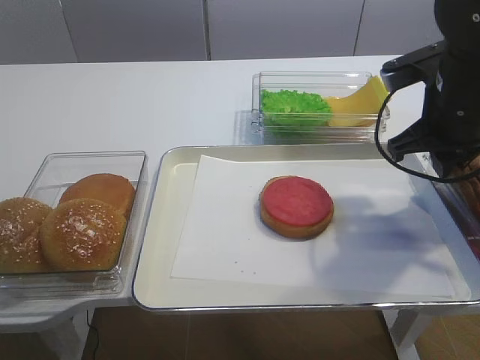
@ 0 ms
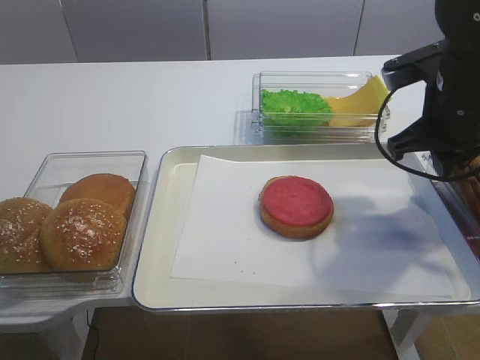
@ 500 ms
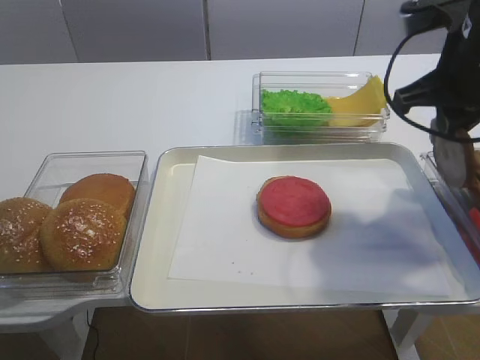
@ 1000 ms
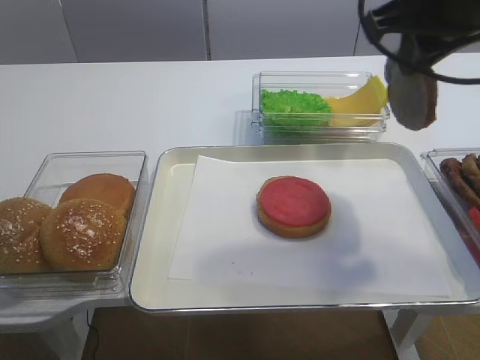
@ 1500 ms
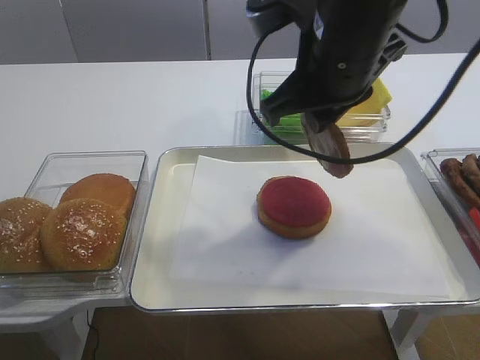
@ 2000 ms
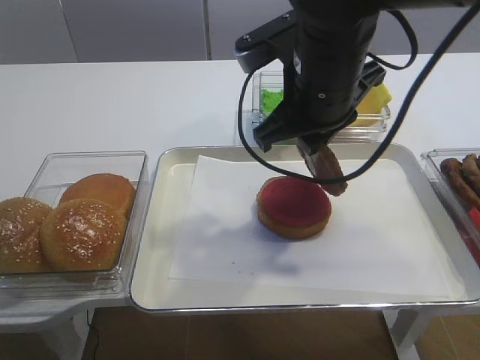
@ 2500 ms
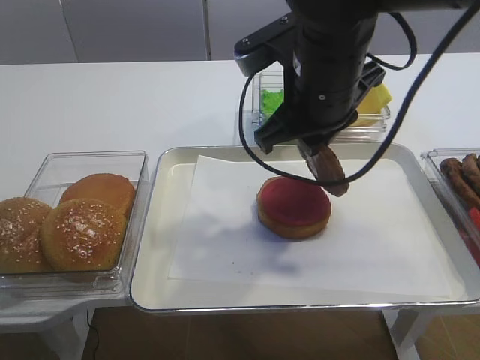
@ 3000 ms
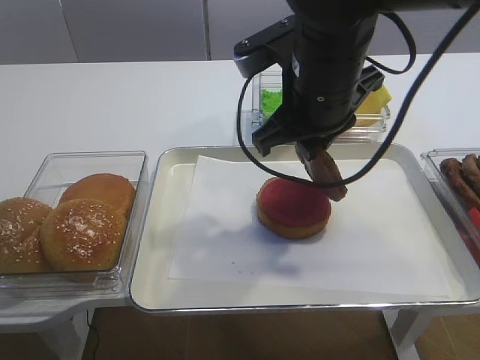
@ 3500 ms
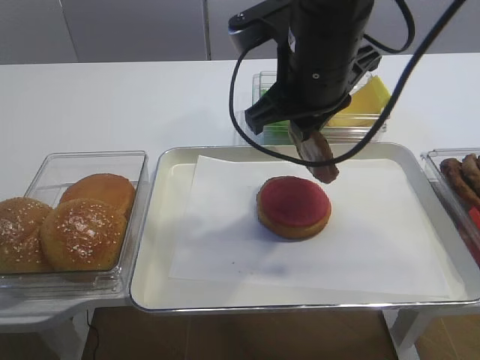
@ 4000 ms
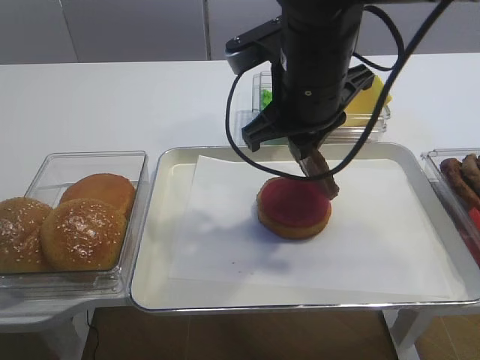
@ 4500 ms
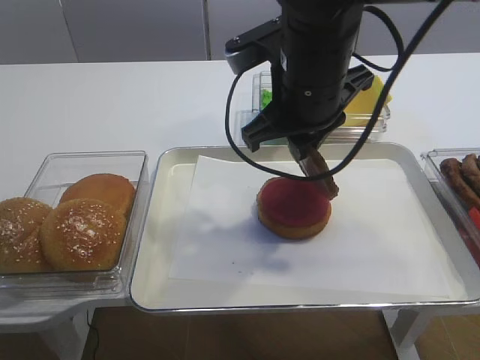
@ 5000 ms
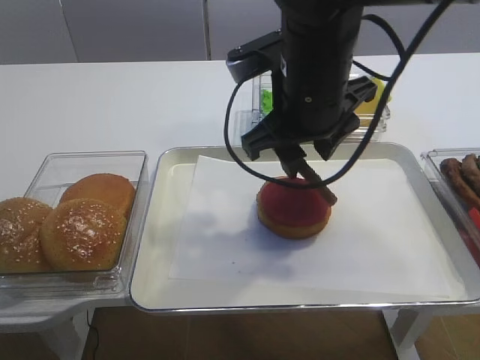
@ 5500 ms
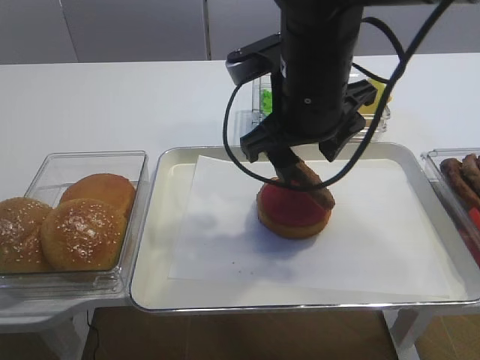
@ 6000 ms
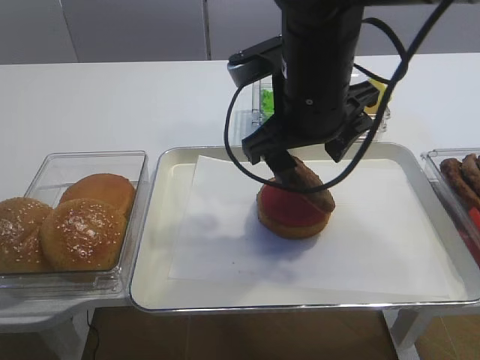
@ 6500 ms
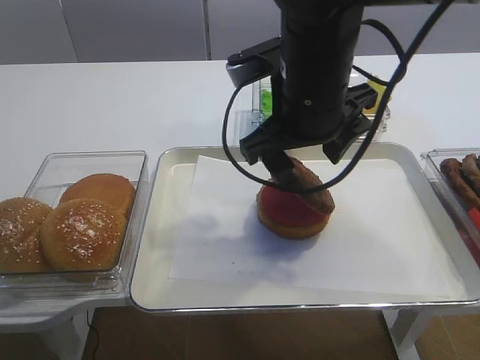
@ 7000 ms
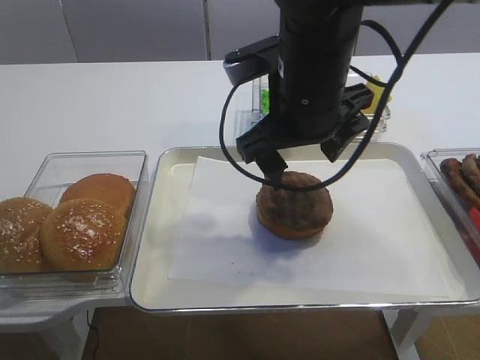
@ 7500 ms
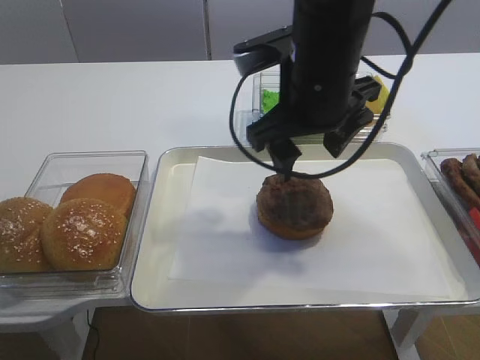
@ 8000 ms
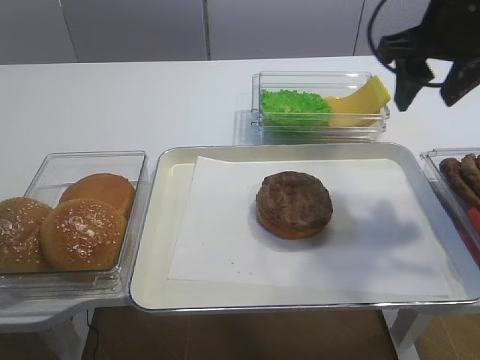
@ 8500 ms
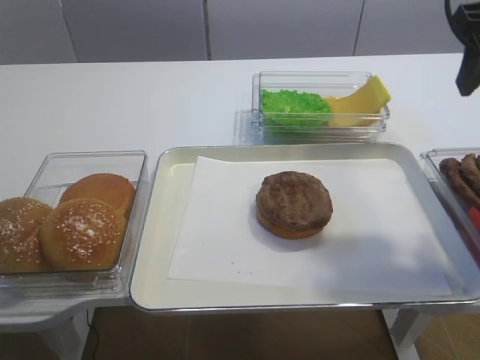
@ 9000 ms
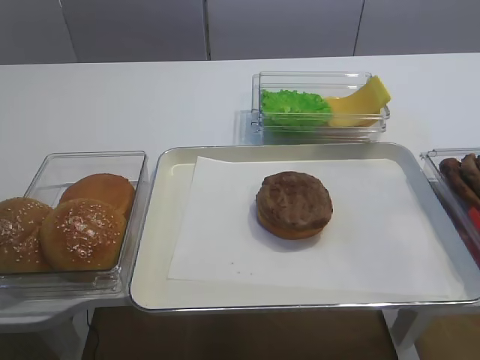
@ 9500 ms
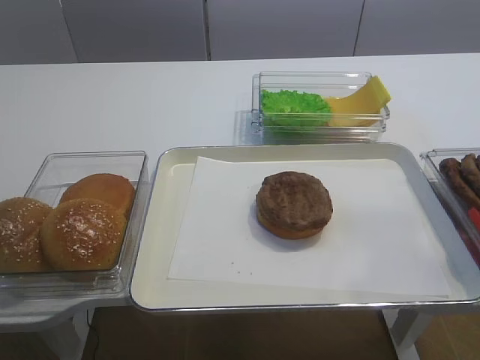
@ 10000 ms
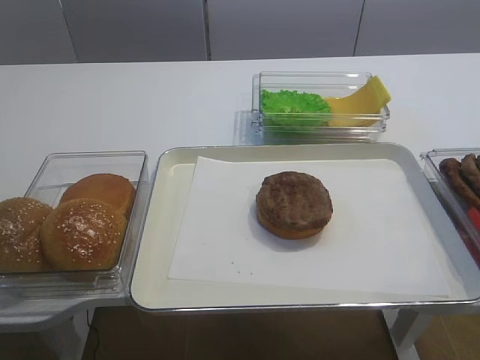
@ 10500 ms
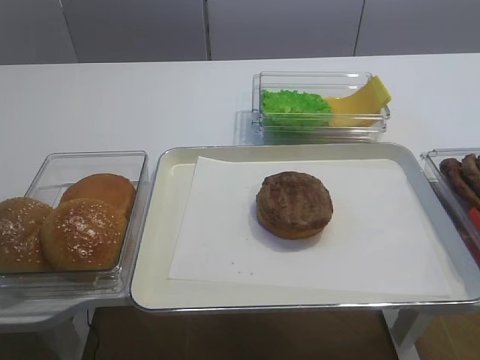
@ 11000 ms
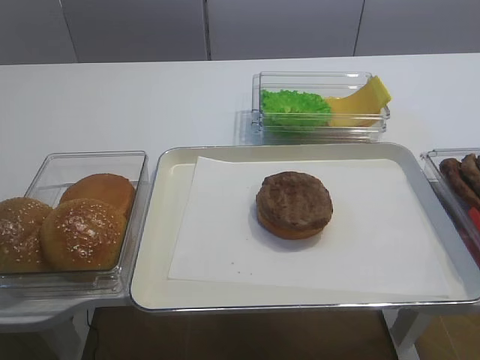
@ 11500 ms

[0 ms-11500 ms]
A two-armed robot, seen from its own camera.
Step, 1500 ms to 7500 ms: Place the cutlet on the tomato slice with the right gripper.
0 ms to 2000 ms: The right gripper is displaced to the left and upward by some 15 cm.
2000 ms to 4000 ms: The grippers stay close to where they were, moving slightly.
4000 ms to 6000 ms: The right gripper opens.
6000 ms to 7500 ms: Both grippers stay put.
7500 ms to 9500 ms: The right gripper heads to the right, backward and upward, covering approximately 25 cm, and closes its fingers.

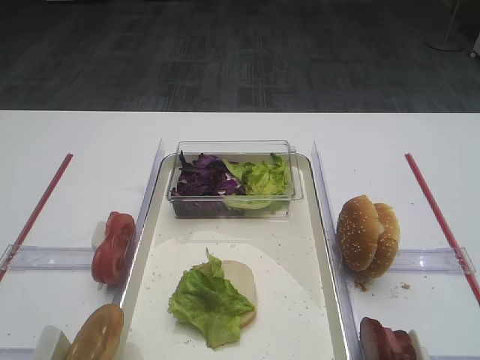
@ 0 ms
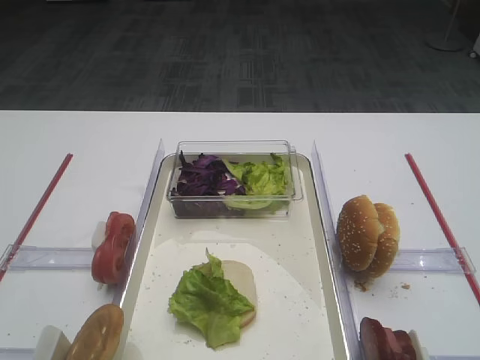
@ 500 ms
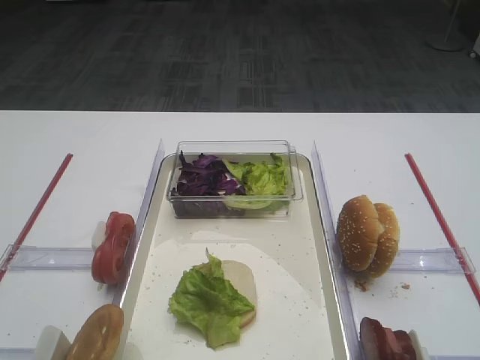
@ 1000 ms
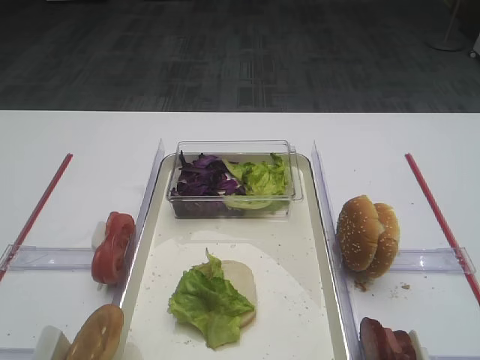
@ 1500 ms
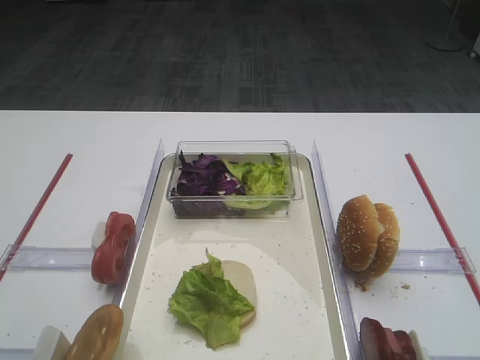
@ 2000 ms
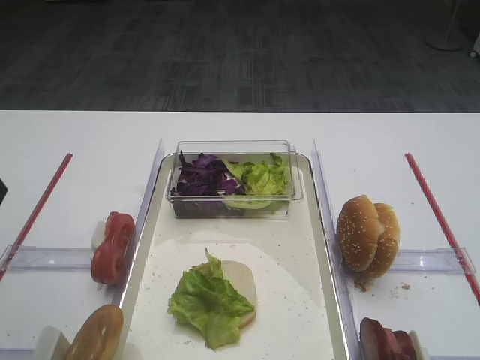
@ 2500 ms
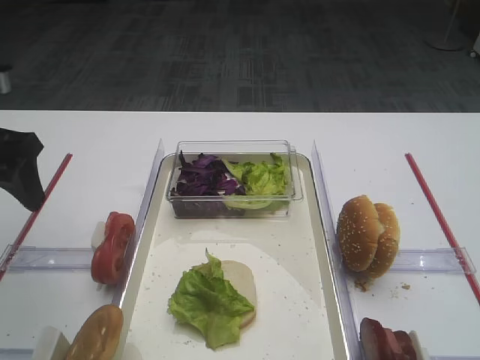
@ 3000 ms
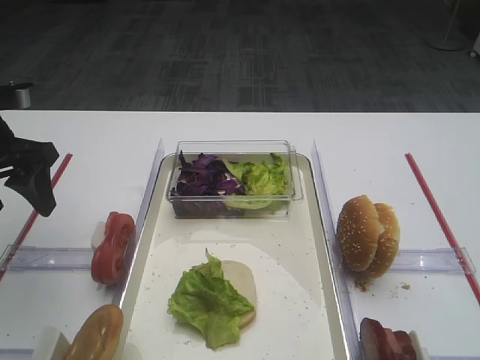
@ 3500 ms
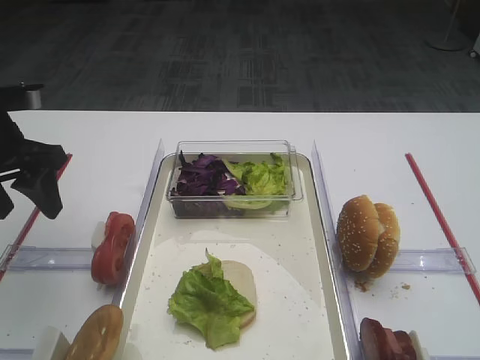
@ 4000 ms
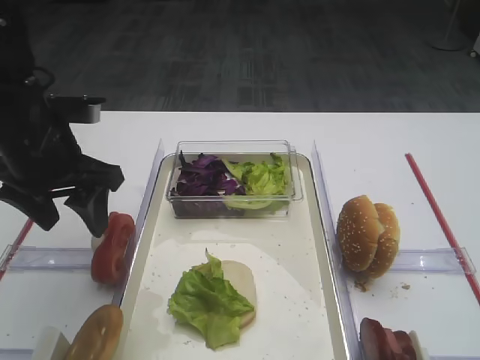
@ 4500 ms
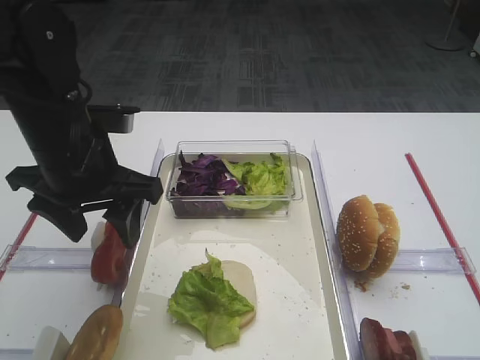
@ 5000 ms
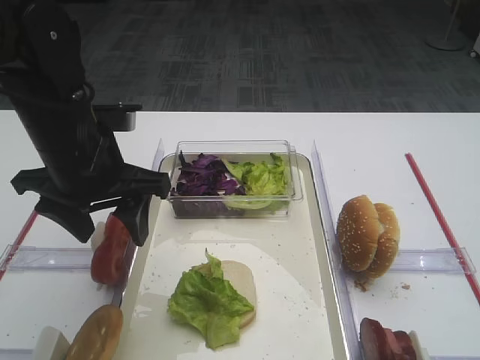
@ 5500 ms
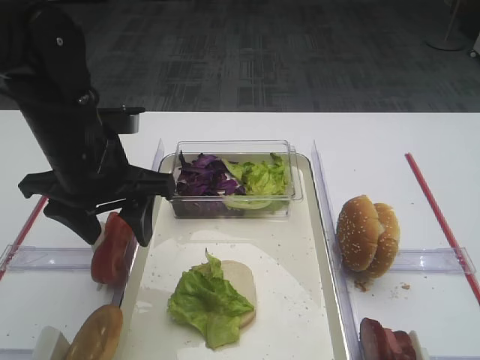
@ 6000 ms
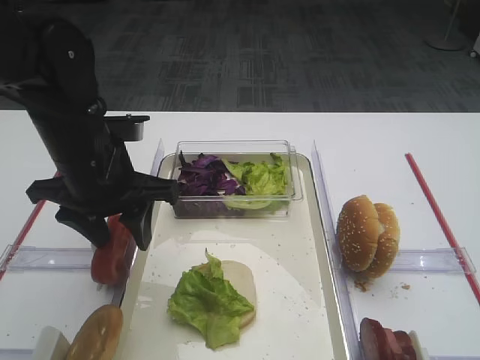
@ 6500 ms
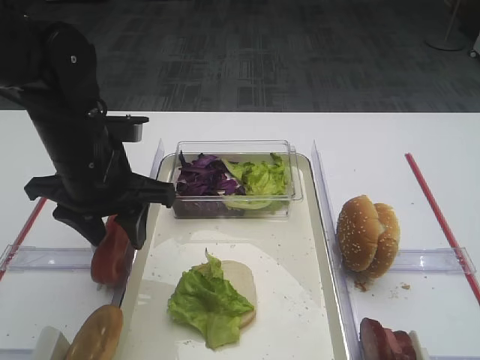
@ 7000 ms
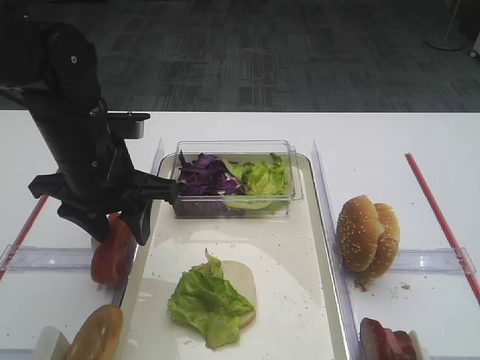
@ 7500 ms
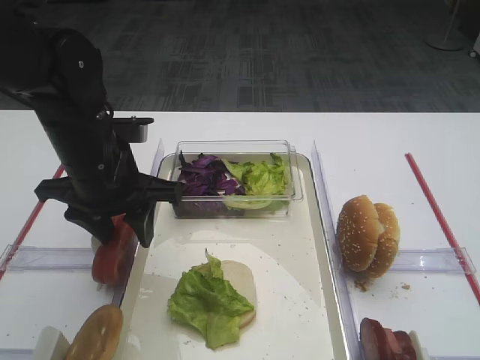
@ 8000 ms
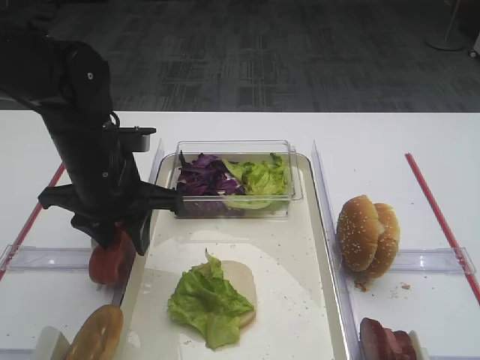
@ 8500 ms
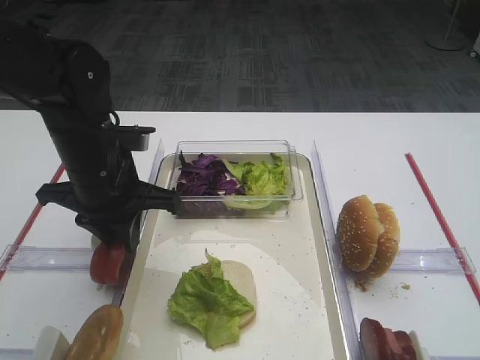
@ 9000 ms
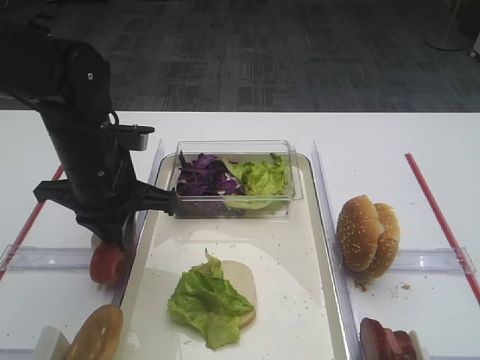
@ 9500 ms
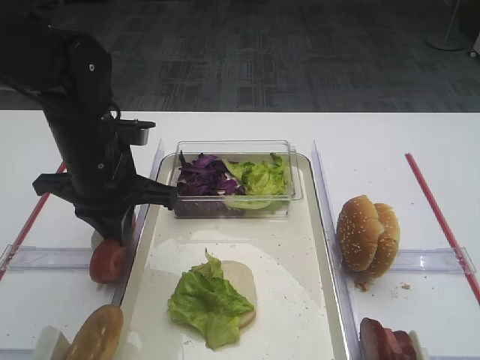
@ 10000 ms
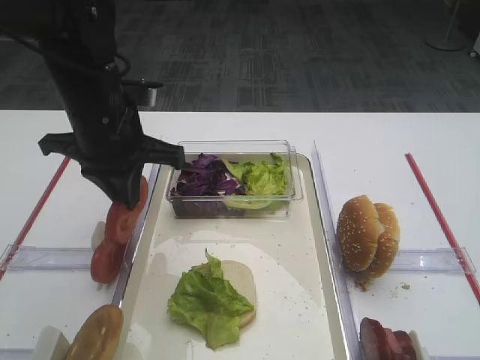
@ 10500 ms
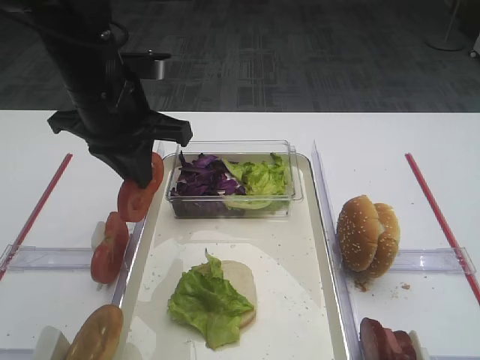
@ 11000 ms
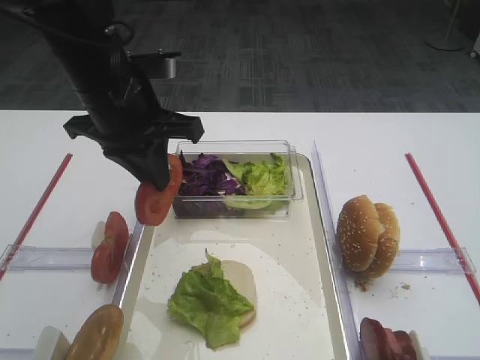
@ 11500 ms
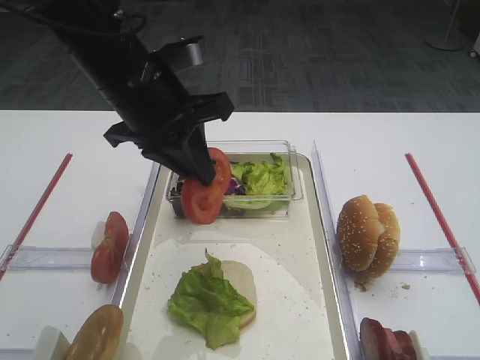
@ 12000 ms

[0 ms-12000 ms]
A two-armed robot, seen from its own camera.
Step, 0 ms to 10000 ms: Pick up the tomato slice with the left gripper.
2000 ms to 4000 ms: The left gripper goes about 25 cm forward.
4000 ms to 6000 ms: The left gripper shifts some 10 cm to the right.
6000 ms to 8000 ms: The grippers move only a little.
8000 ms to 10000 ms: The left gripper closes.
10000 ms to 12000 ms: The left gripper moves upward, roughly 10 cm.

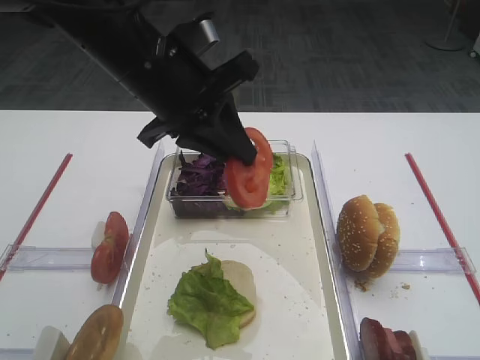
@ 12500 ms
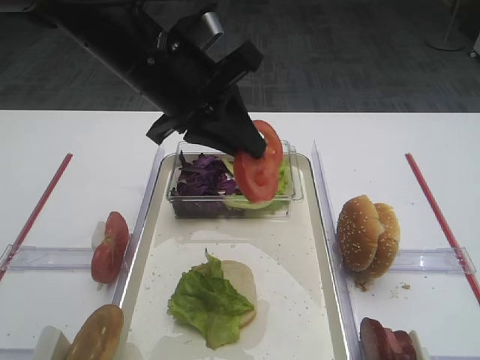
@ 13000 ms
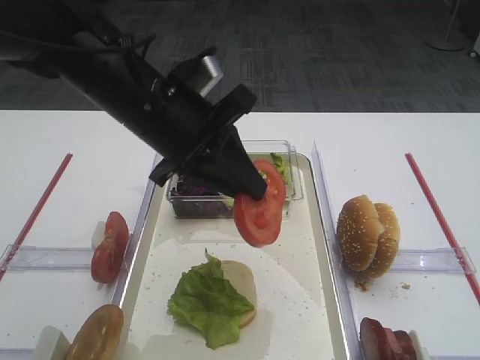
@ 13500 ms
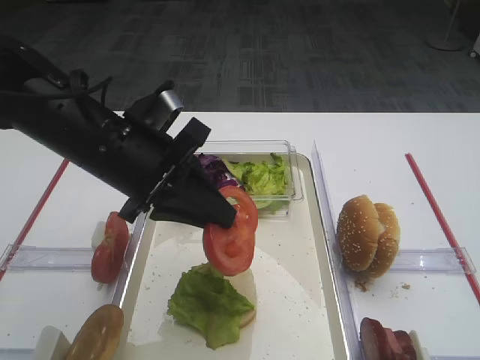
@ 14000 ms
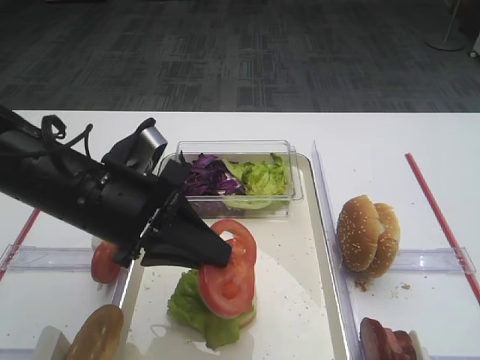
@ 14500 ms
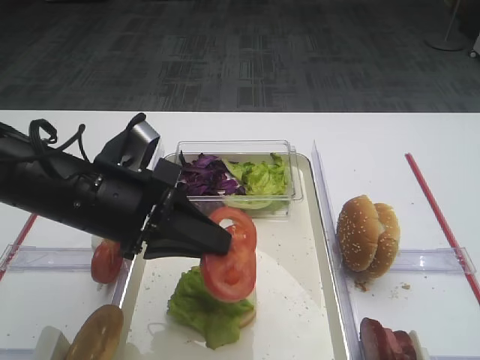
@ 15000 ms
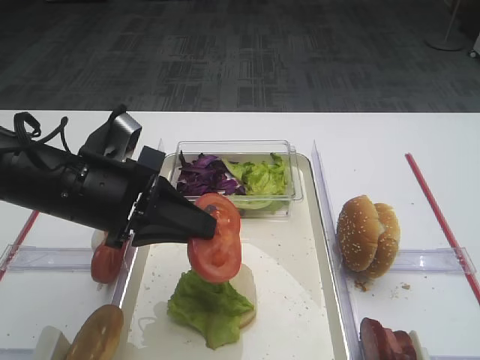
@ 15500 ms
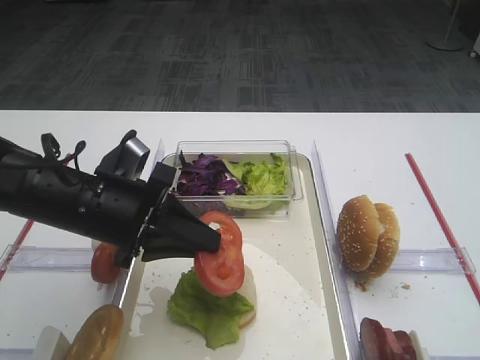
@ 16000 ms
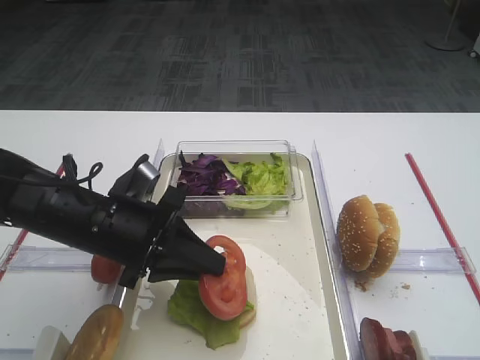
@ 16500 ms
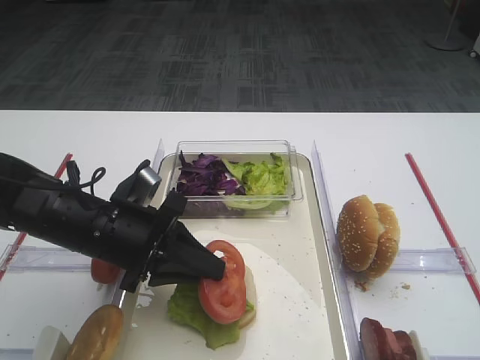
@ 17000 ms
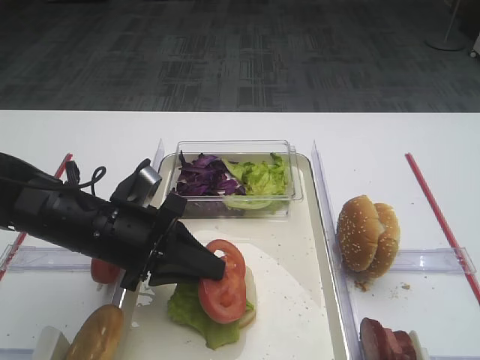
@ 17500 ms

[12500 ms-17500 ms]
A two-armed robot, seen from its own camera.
12500 ms to 15000 ms: The left gripper moves downward and backward, some 10 cm.
15000 ms to 17500 ms: The left gripper heads downward, covering approximately 5 cm.
